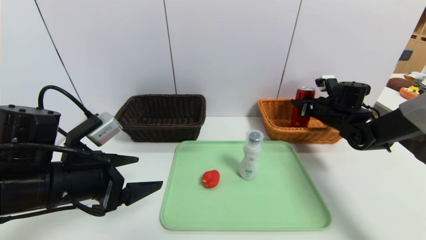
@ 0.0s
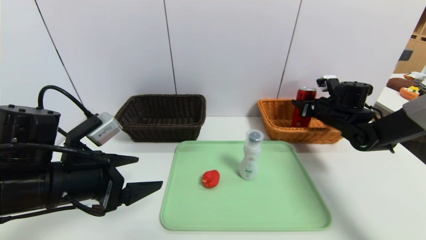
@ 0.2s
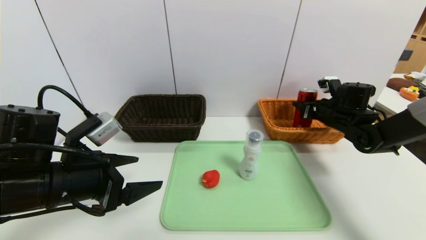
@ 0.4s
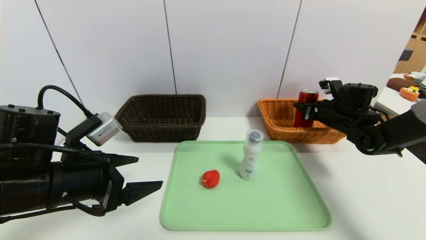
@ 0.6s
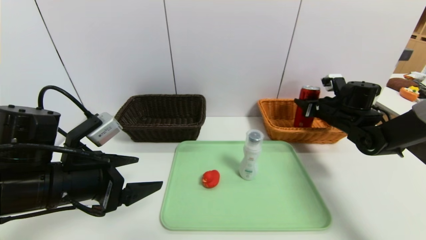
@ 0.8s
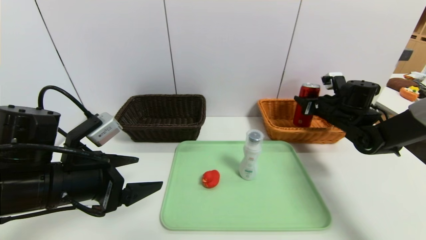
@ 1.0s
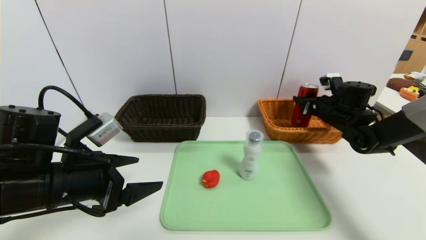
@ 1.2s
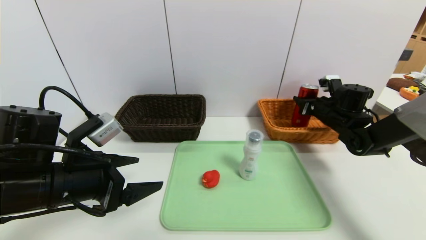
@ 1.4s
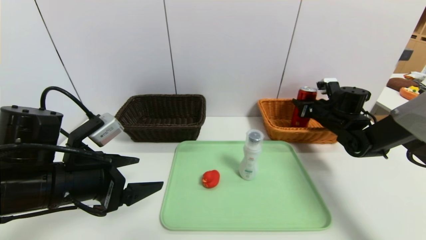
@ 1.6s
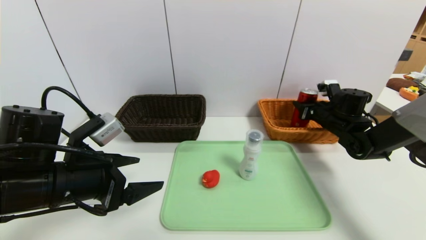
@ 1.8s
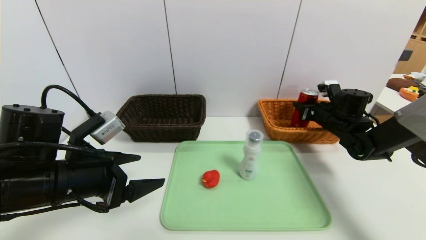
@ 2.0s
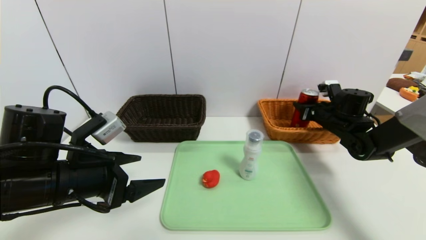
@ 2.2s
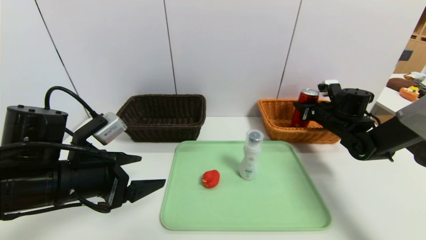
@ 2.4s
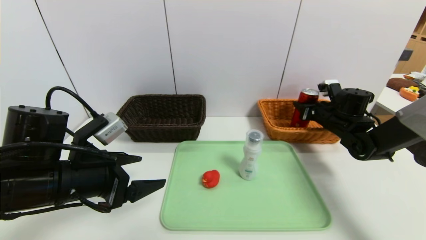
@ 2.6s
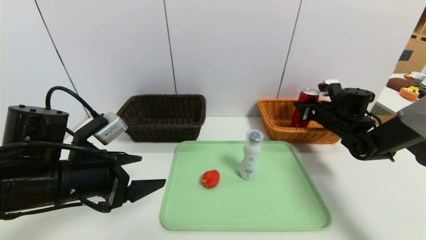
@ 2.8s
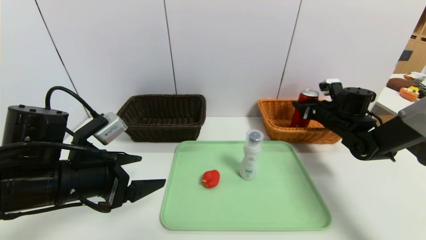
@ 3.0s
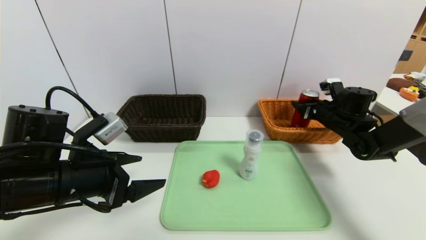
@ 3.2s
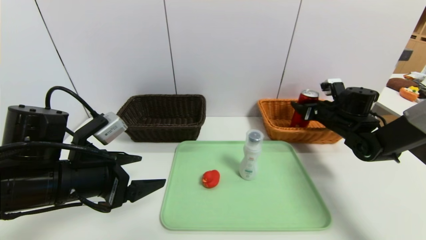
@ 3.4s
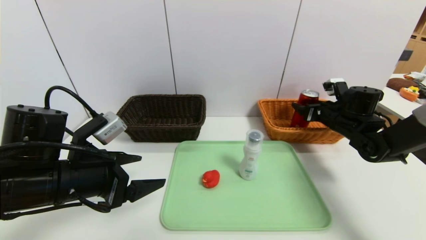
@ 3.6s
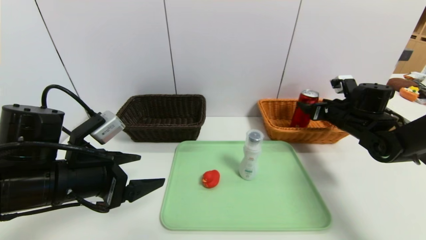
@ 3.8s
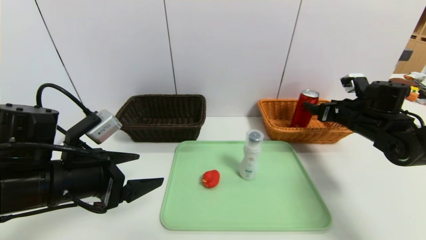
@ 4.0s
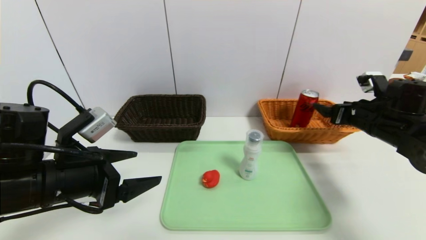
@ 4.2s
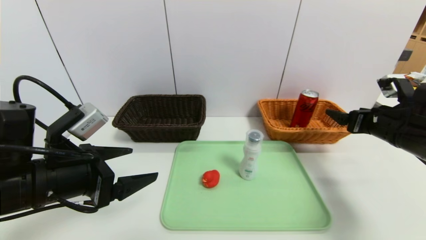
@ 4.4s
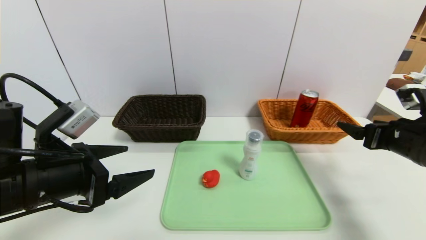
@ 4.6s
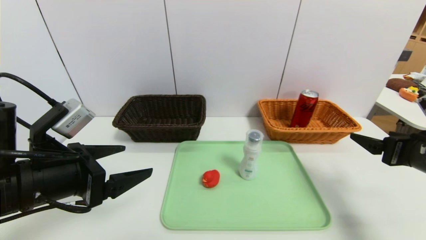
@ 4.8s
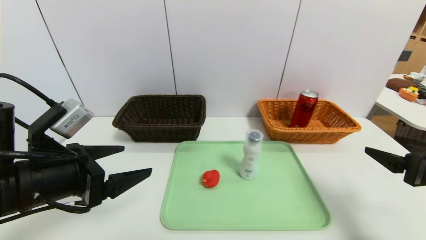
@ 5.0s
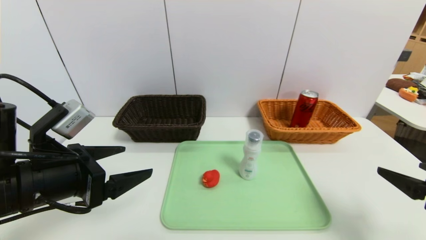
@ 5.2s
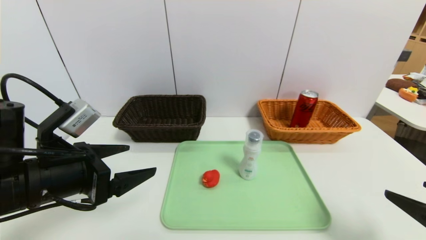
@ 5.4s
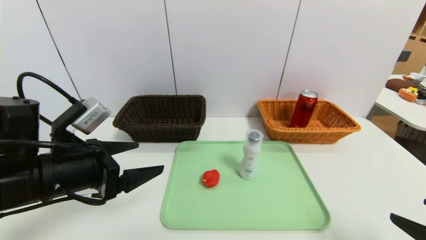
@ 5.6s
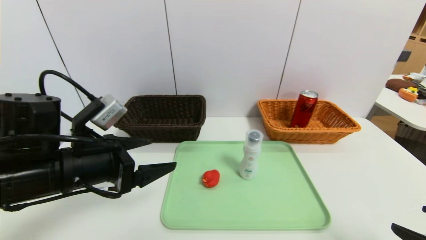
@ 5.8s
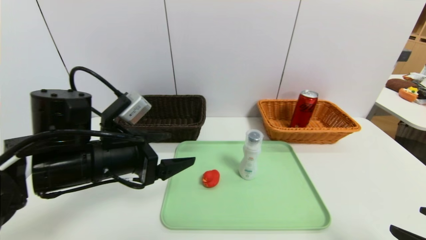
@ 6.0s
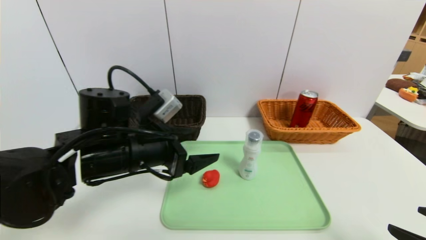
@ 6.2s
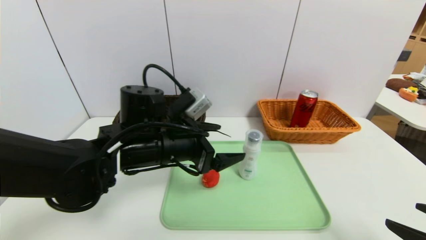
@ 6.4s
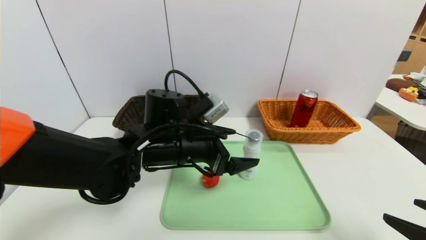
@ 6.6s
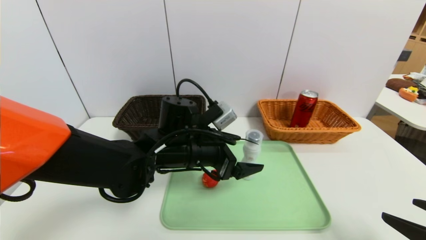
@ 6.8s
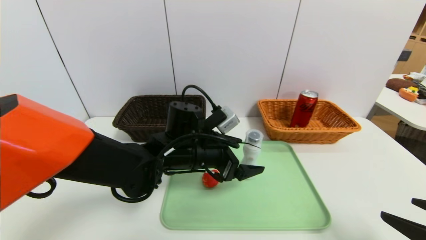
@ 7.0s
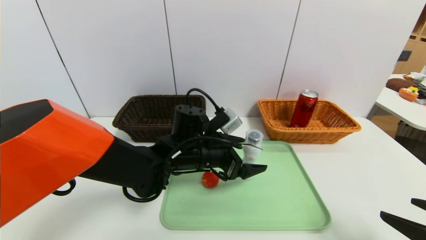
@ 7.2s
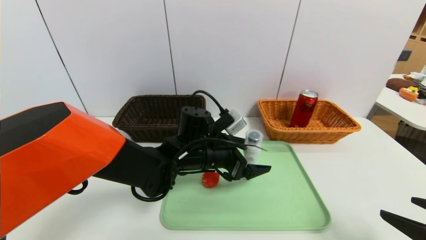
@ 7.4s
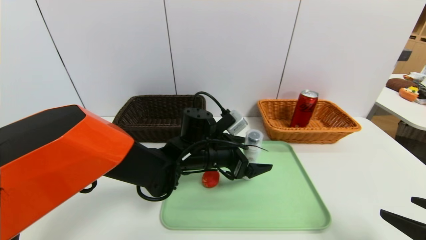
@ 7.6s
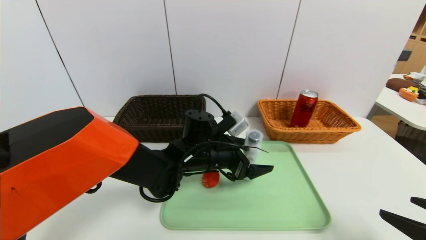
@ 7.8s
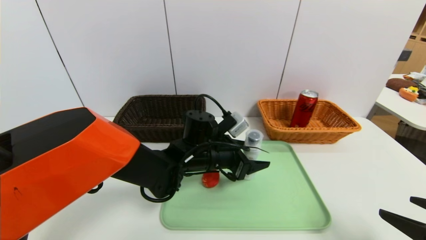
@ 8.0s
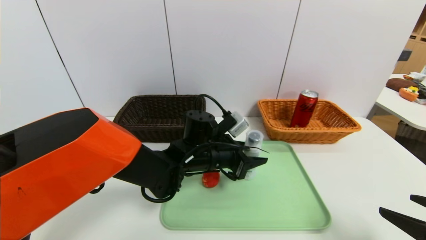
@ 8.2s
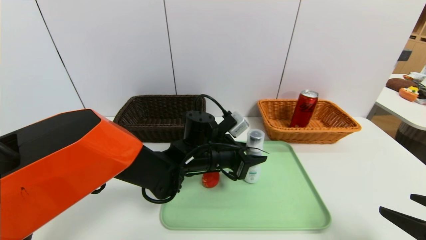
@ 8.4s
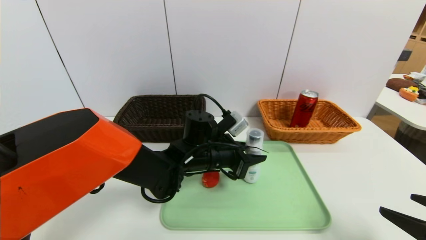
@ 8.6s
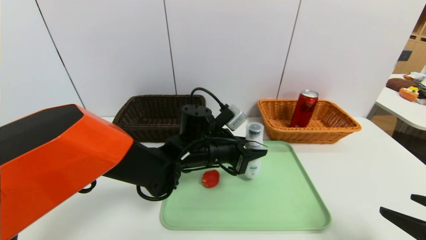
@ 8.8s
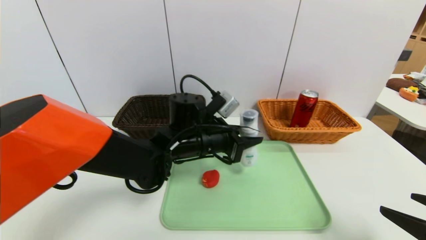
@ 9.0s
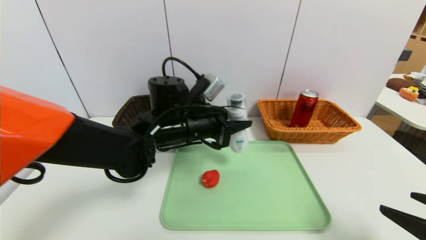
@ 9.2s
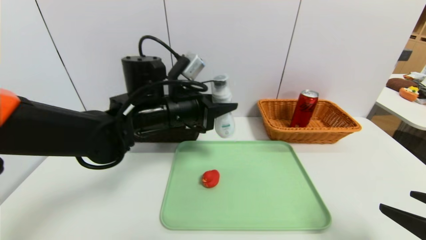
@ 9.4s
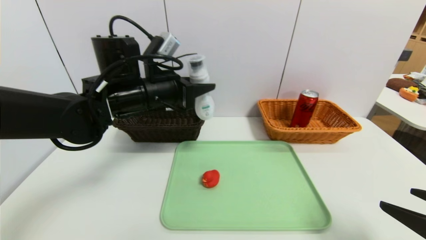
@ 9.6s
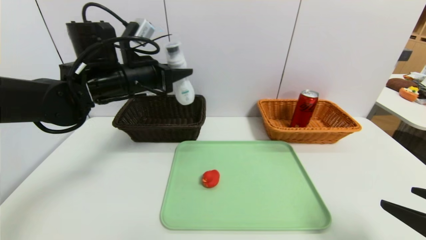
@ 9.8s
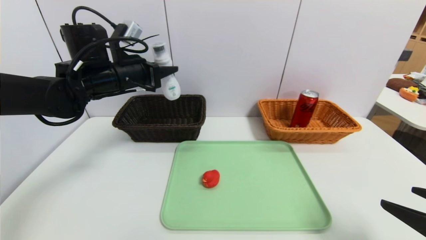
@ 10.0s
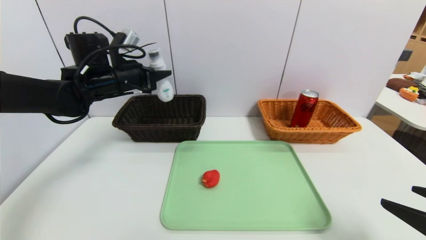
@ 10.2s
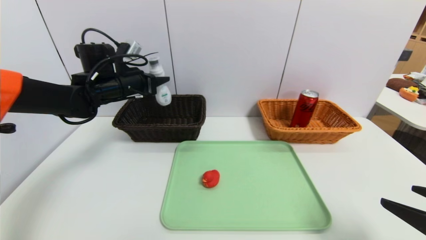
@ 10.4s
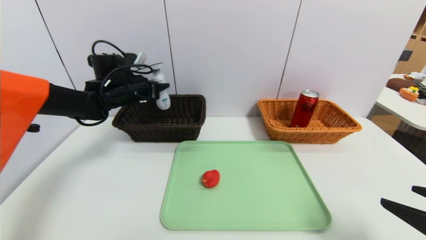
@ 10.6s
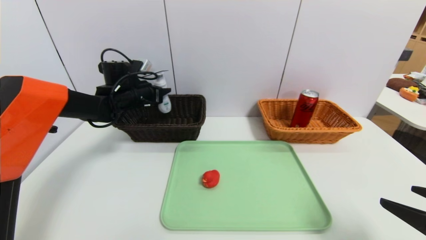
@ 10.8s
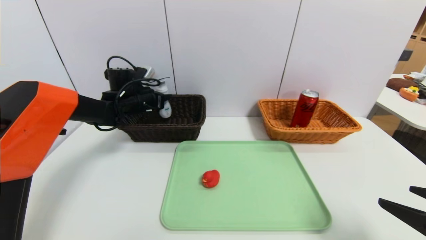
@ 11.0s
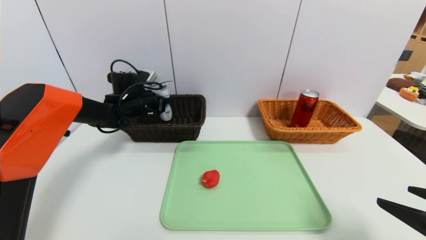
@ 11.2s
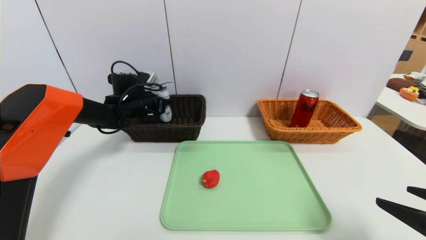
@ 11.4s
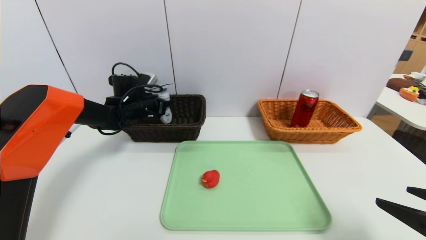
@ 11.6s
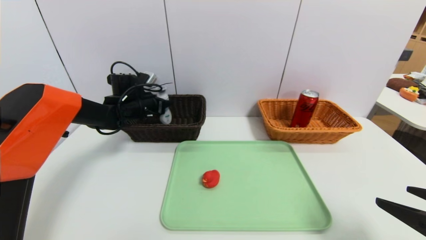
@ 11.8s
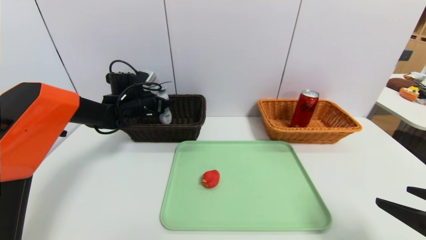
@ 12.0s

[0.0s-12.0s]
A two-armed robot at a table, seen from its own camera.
Task of the whole recording: place the food in the right basket with the right gripper, and place the non food items in the left basket with the left gripper.
Step, 0.0s to 3.4s: Grasp the coke and put it in the right basket.
0.0s to 1.6s: There are only small adjustments of the grippers.
1.6s to 3.0s: The right gripper opens.
3.0s to 4.4s: The right gripper is displaced backward and upward by some 15 cm, and opens its fingers.
4.4s to 6.0s: The right gripper is displaced backward by approximately 25 cm, while the left gripper goes roughly 5 cm to the right.
6.0s to 7.6s: The left gripper travels to the right, forward and downward by approximately 20 cm.
7.6s to 9.0s: The left gripper closes.
9.0s to 10.4s: The left gripper is displaced to the left and forward by approximately 20 cm.
10.4s to 12.0s: The left gripper heads downward and forward, covering roughly 10 cm, and opens.

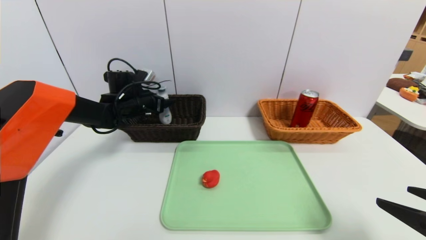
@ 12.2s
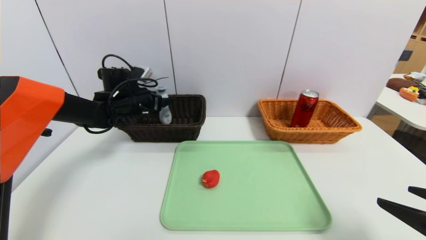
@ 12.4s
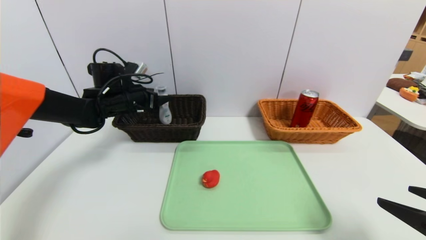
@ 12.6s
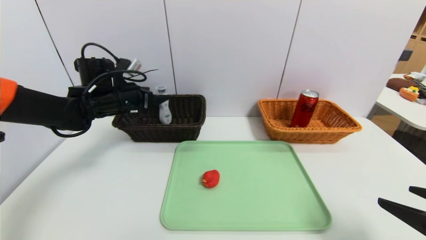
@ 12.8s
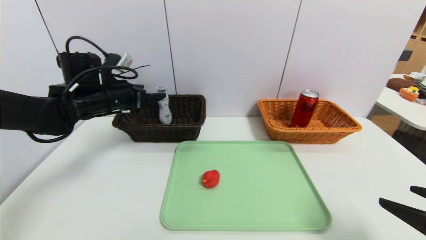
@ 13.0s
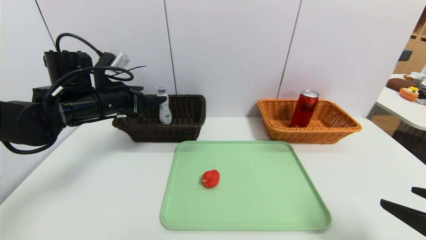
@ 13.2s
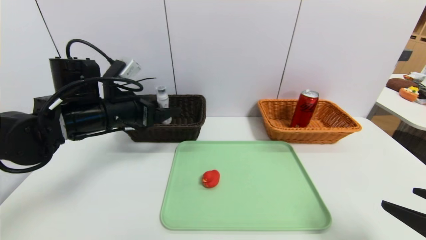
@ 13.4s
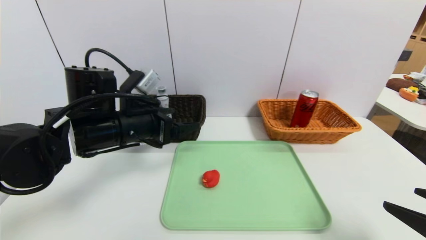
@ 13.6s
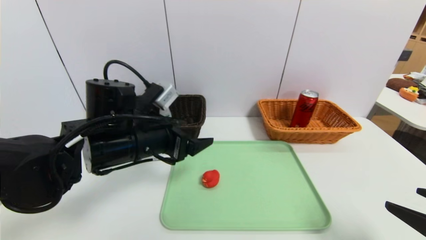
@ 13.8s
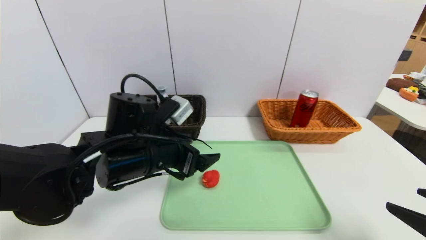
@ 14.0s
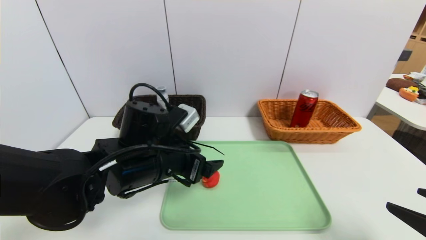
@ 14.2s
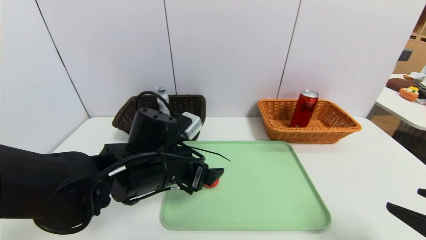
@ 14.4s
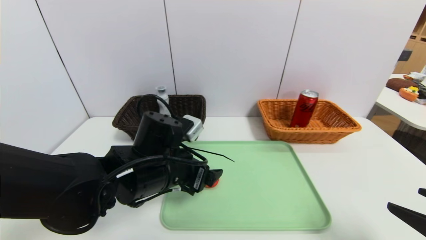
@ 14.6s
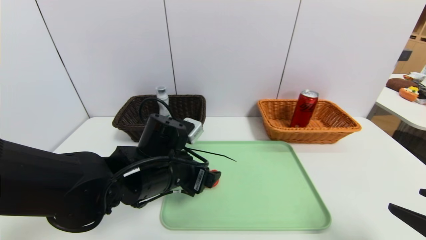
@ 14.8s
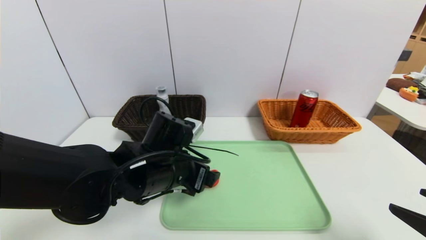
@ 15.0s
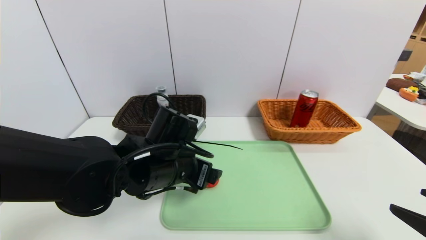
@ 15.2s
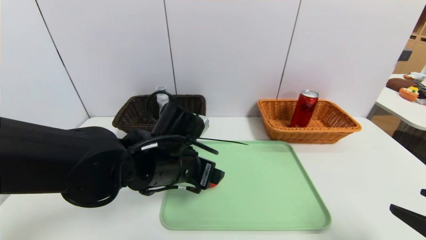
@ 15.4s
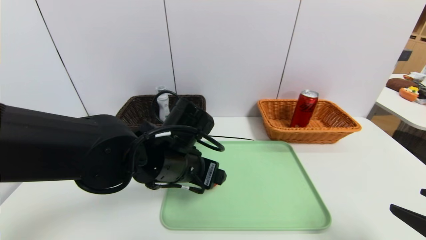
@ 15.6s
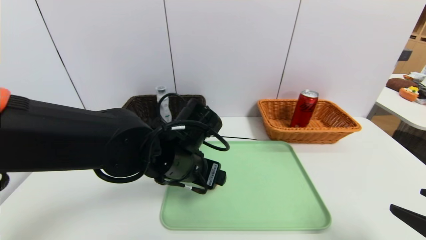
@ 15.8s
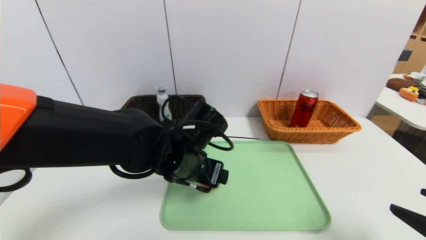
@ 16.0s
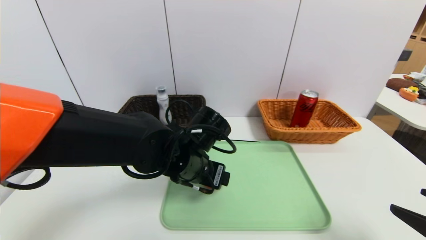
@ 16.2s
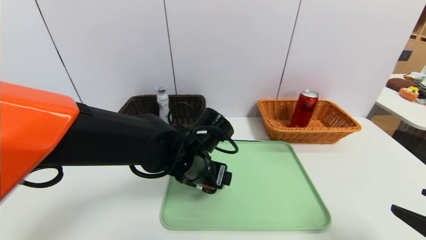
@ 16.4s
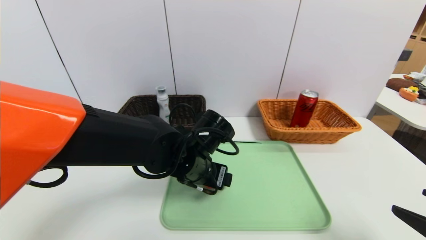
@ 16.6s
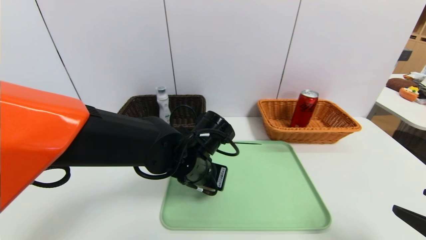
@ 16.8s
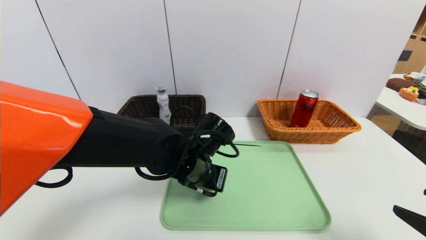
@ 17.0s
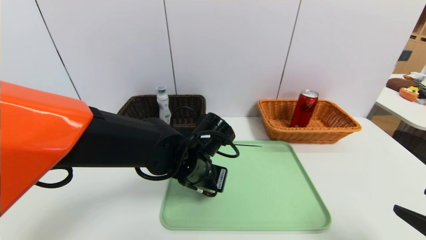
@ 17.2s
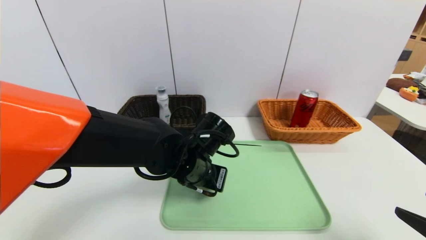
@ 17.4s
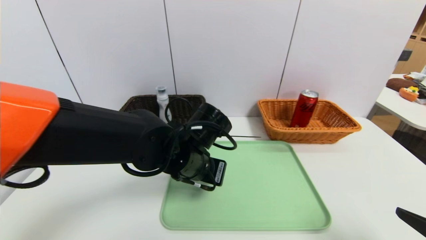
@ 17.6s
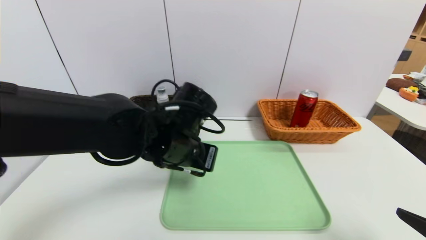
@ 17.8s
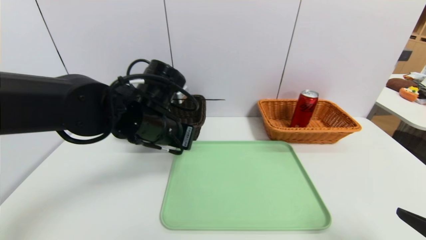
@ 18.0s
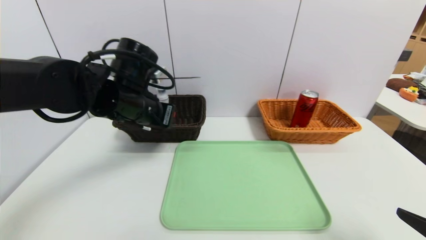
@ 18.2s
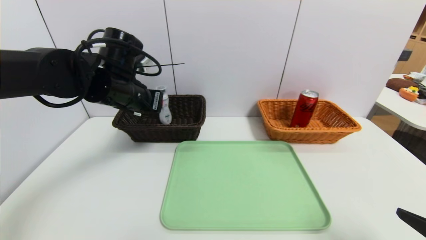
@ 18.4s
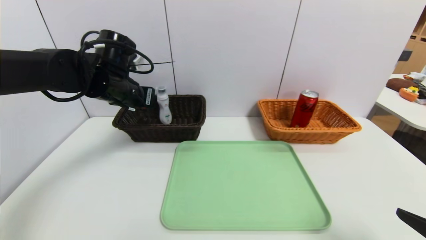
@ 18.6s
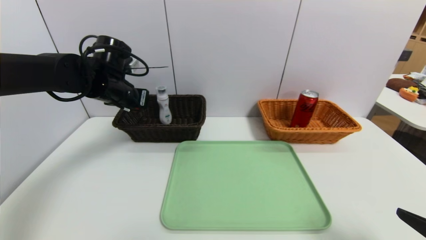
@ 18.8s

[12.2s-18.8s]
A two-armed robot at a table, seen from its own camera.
Task of the whole recording: place the food in the right basket with the right gripper, and place the non food items in the left basket with the left gripper.
12.2s to 13.8s: The left gripper moves backward and to the right, some 25 cm.
13.8s to 15.4s: The left gripper shifts about 5 cm to the right.
15.4s to 17.2s: The left gripper moves some 5 cm, and closes its fingers.
17.2s to 18.8s: The left gripper shifts about 25 cm to the left, forward and upward.
